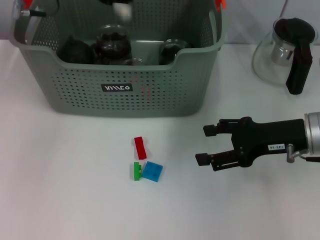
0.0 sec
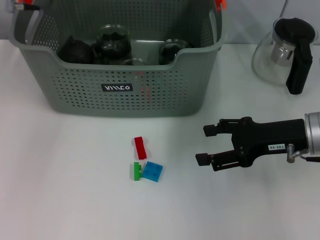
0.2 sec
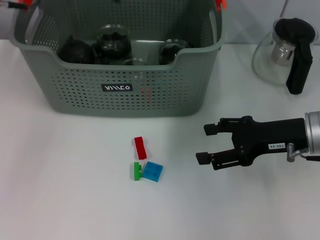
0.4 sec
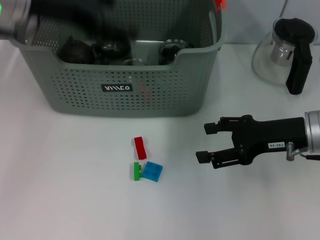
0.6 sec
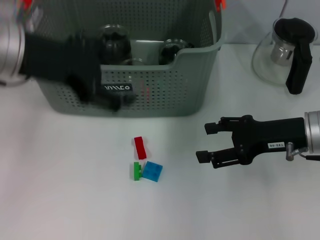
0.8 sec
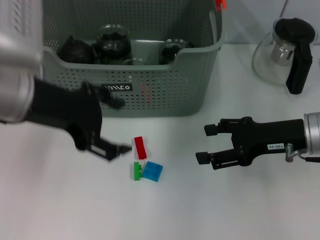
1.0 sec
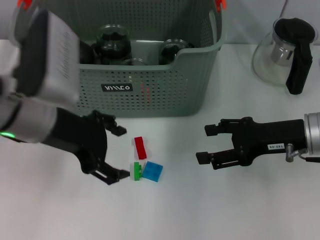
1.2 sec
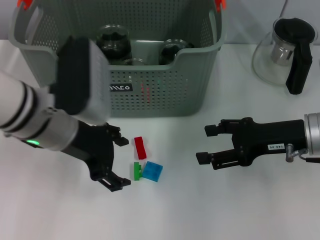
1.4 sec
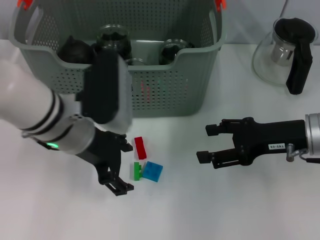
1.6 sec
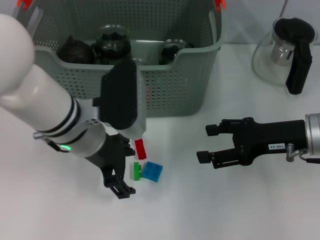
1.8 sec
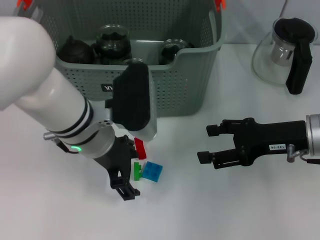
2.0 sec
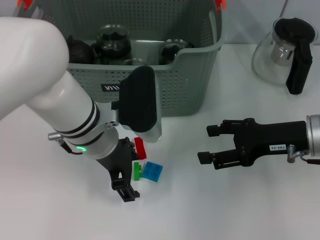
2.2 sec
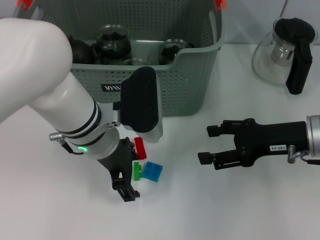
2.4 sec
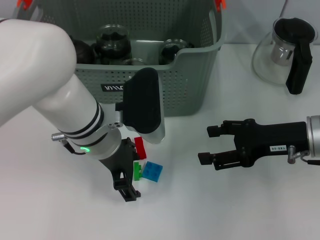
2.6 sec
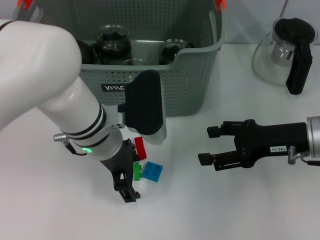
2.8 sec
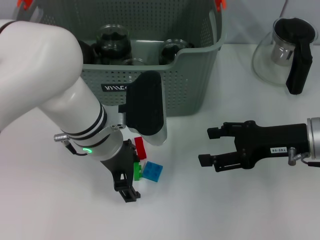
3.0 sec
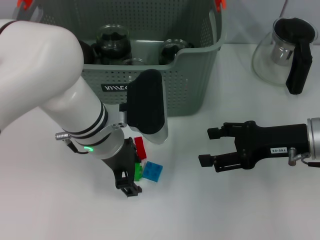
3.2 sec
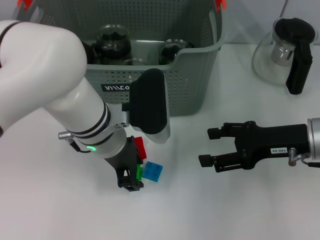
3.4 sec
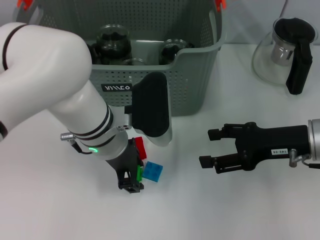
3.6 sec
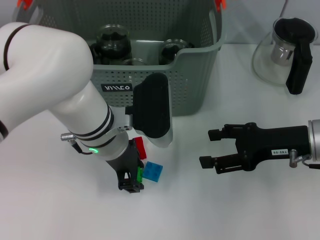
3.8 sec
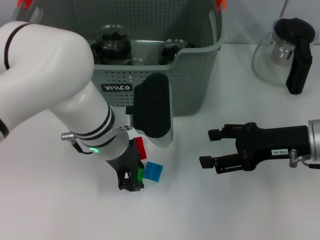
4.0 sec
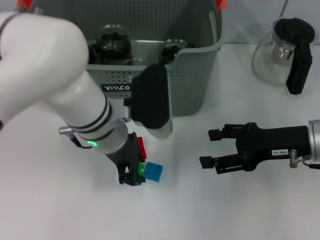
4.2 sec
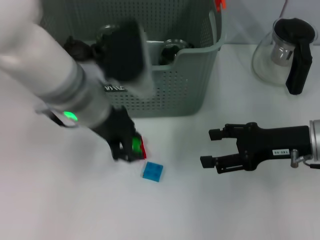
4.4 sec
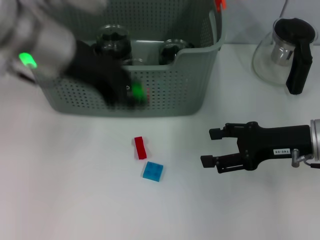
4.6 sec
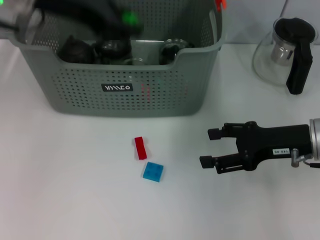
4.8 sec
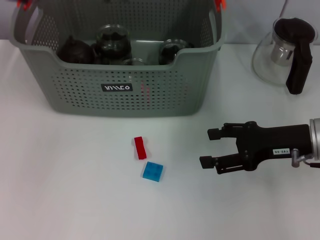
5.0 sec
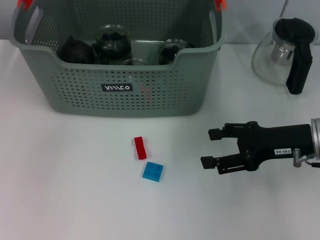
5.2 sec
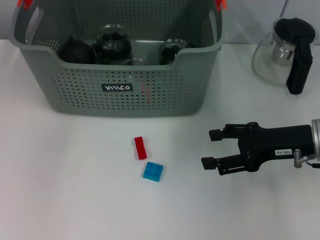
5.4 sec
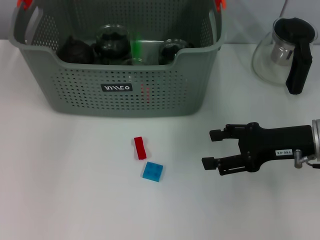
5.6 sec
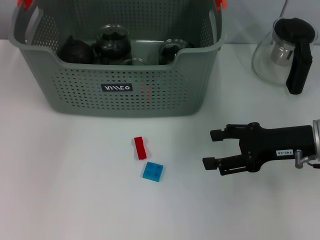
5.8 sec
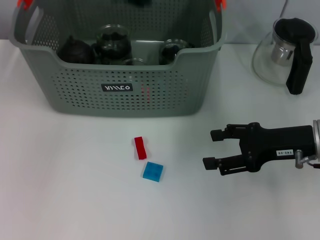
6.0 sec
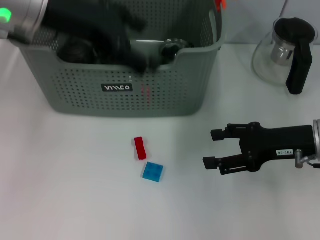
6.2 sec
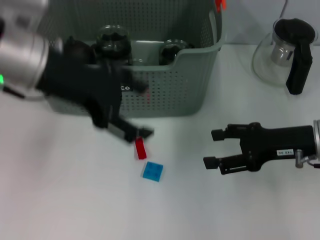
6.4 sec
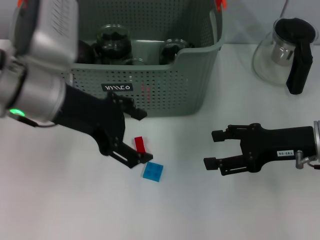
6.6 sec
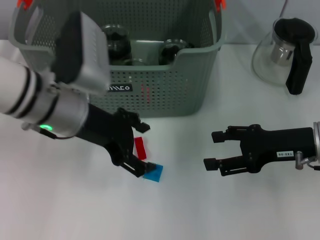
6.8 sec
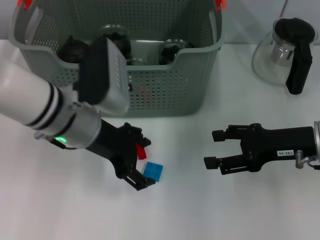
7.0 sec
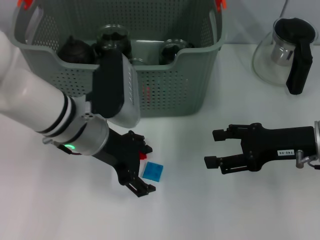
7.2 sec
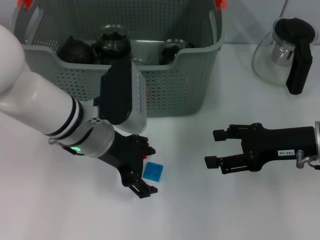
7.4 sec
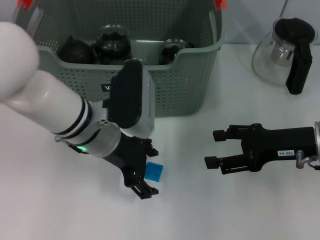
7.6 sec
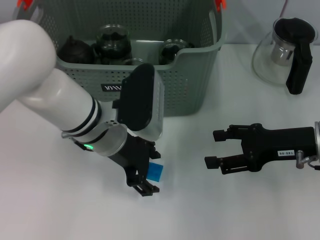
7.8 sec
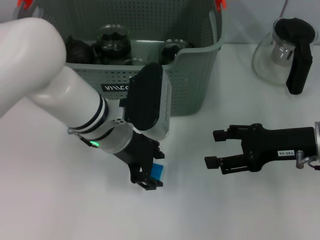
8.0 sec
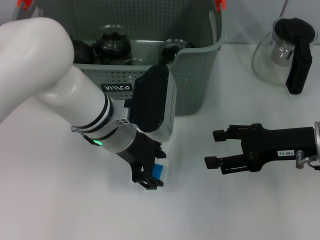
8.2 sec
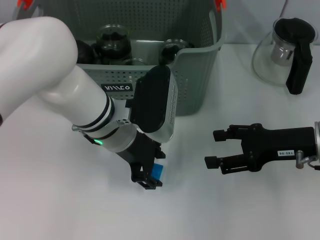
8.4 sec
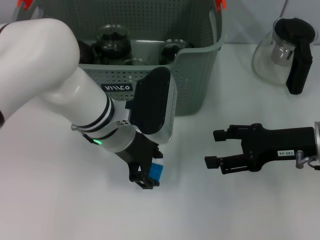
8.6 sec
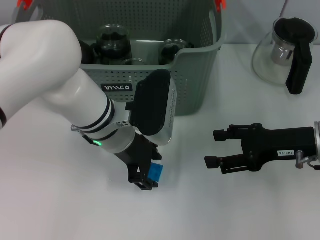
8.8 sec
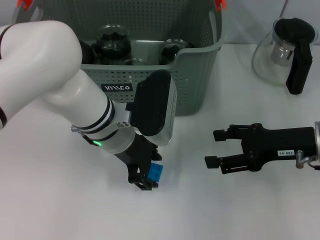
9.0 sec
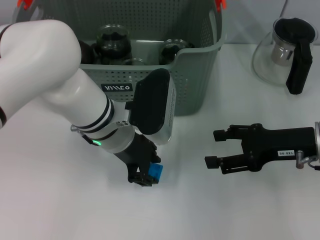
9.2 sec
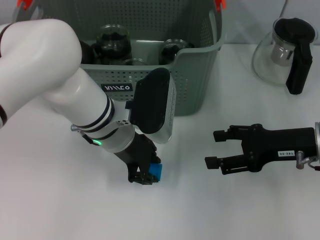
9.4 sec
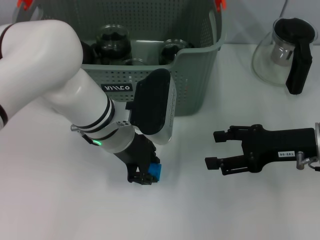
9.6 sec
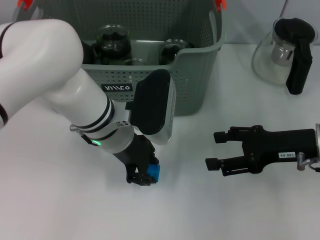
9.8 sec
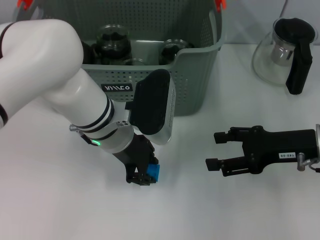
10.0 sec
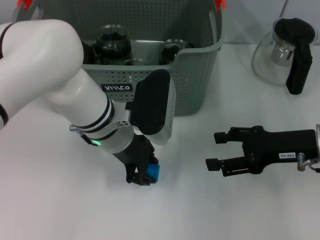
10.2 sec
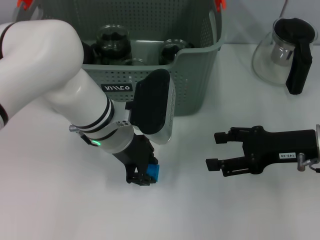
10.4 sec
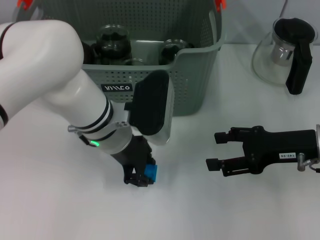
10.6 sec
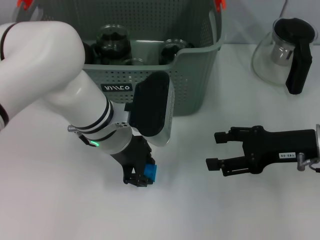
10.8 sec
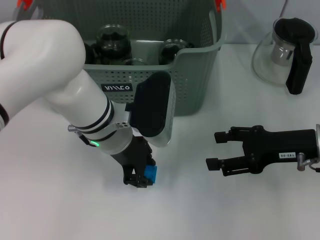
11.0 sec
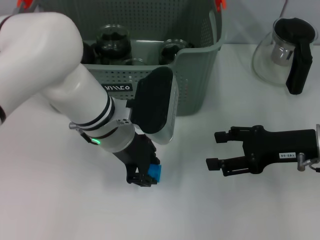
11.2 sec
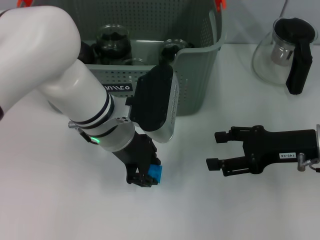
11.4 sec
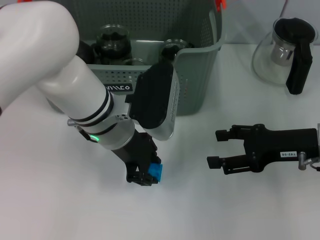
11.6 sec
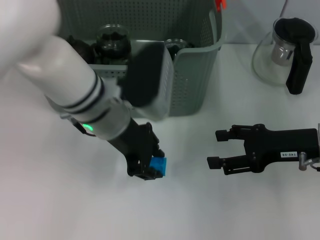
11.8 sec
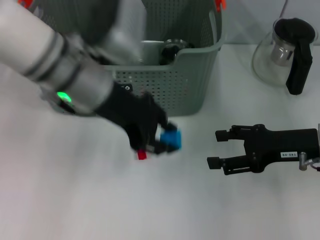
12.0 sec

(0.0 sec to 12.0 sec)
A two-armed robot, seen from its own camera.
Task of the whole recording: pick up the teacup on the table and place it into the storage bin, pick up the block on the table and place it into the storage bin.
Step, 0.4 sec - 4.0 sec: Grasp the green block with left gripper.
Step, 4.2 sec - 5.6 sec: Place the green block in the storage box with left gripper.
Step, 5.8 sec - 9.2 sec: Grasp the dark blue block with left gripper.
0.0 sec - 1.6 sec: The left gripper moves backward, downward and to the right, approximately 15 cm, and opens its fingers.
1.6 sec - 3.0 sec: The left gripper moves approximately 5 cm.
3.0 sec - 4.4 sec: The left gripper goes approximately 5 cm upward, and closes up.
4.4 sec - 6.0 sec: The left gripper heads upward, forward and to the left, covering about 15 cm, and opens its fingers.
6.0 sec - 7.6 sec: The left gripper goes about 20 cm downward and backward.
7.6 sec - 9.0 sec: The grippers move only a little.
9.0 sec - 10.4 sec: The two grippers keep their place.
10.4 sec - 12.0 sec: The left gripper is displaced upward by some 10 cm.

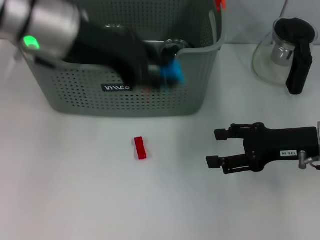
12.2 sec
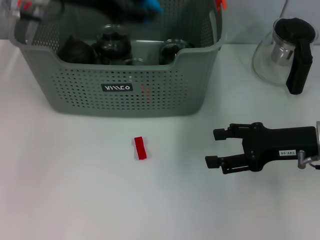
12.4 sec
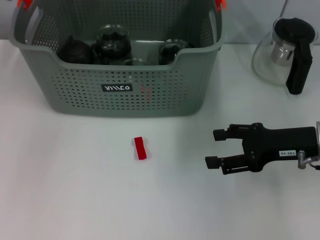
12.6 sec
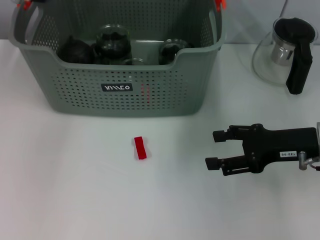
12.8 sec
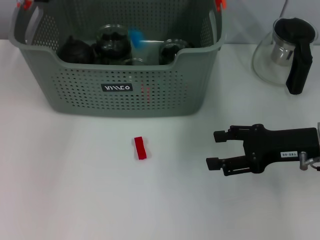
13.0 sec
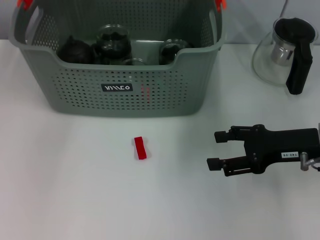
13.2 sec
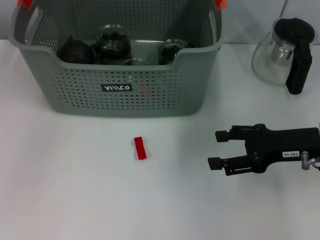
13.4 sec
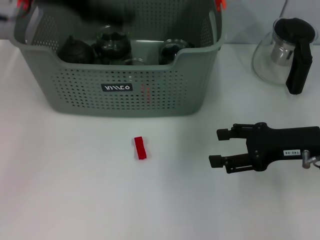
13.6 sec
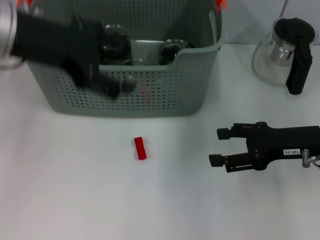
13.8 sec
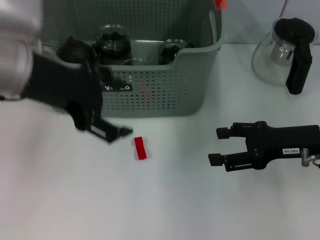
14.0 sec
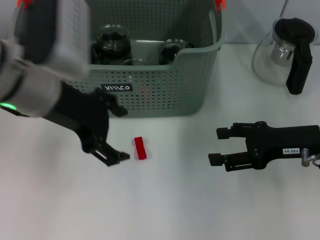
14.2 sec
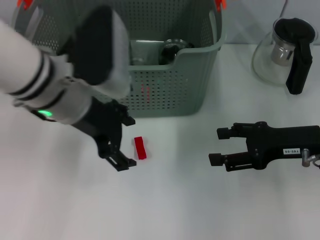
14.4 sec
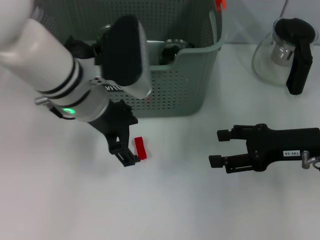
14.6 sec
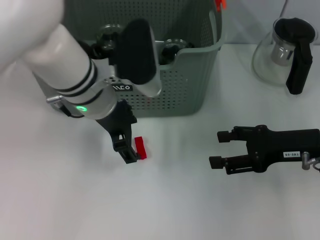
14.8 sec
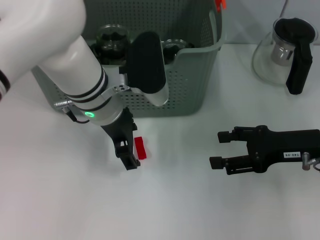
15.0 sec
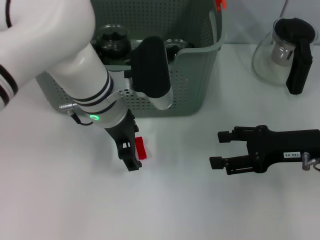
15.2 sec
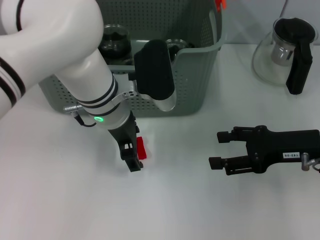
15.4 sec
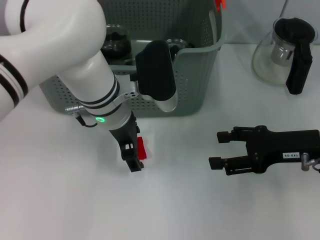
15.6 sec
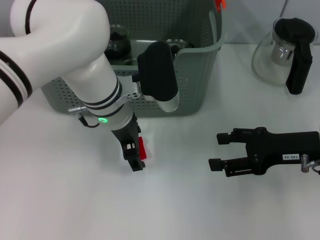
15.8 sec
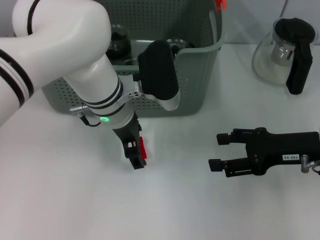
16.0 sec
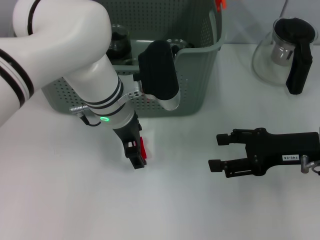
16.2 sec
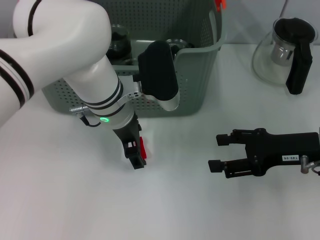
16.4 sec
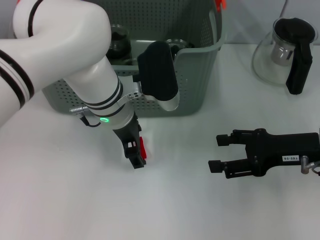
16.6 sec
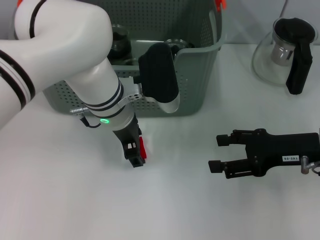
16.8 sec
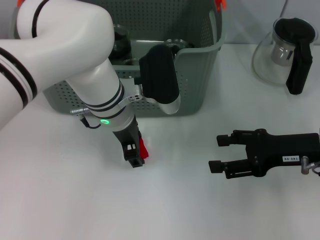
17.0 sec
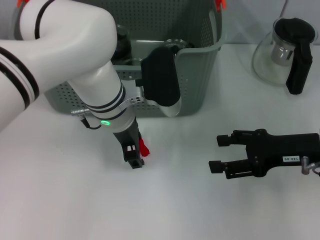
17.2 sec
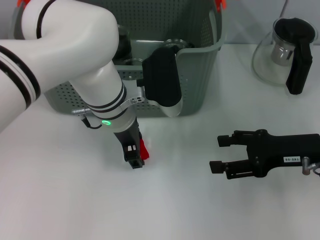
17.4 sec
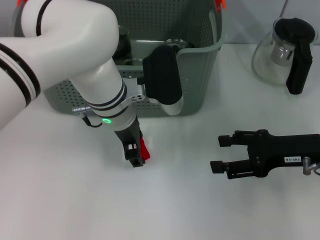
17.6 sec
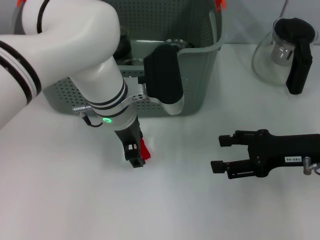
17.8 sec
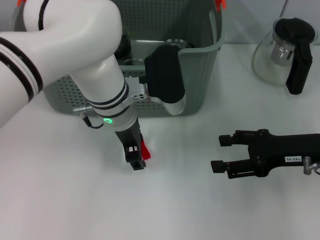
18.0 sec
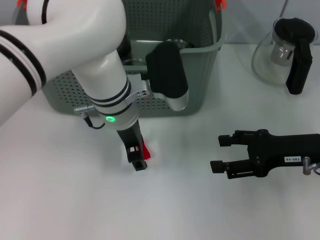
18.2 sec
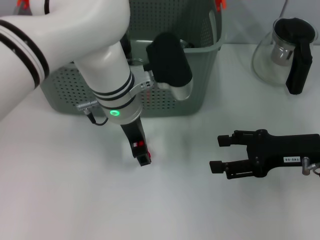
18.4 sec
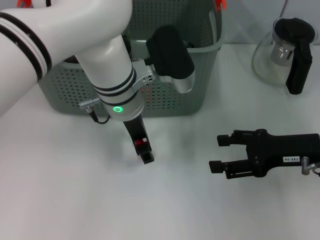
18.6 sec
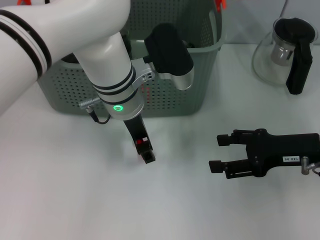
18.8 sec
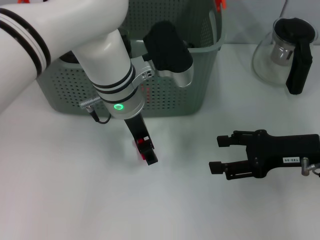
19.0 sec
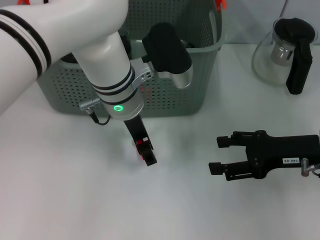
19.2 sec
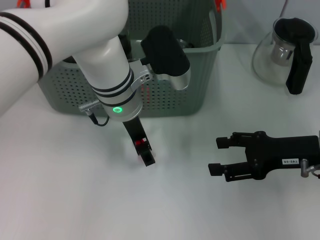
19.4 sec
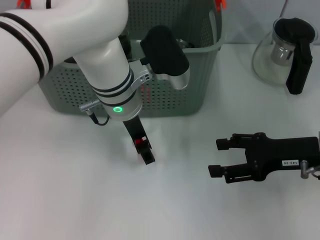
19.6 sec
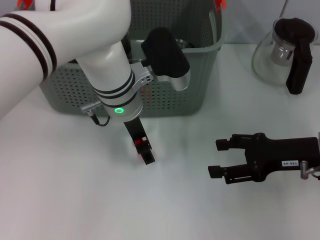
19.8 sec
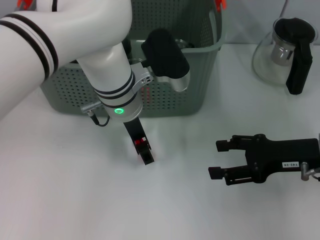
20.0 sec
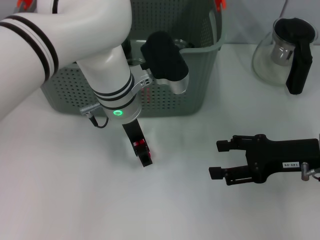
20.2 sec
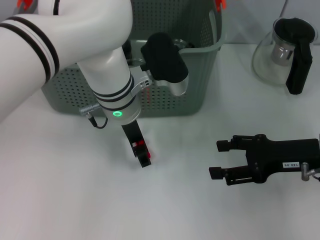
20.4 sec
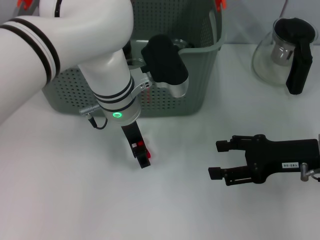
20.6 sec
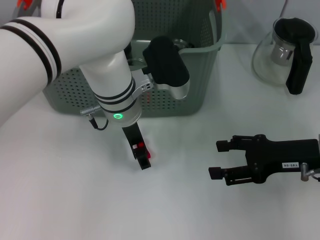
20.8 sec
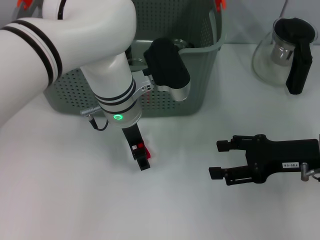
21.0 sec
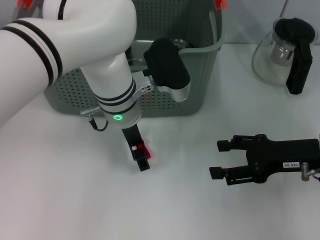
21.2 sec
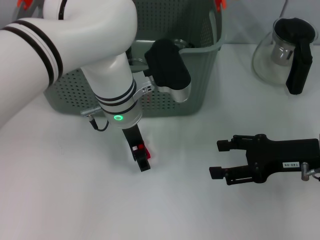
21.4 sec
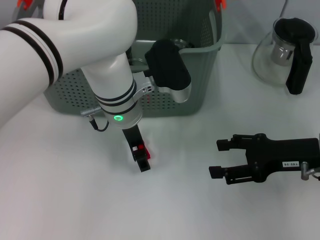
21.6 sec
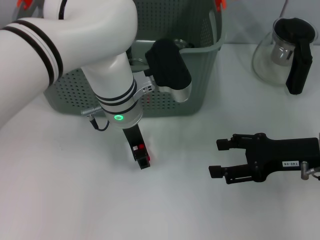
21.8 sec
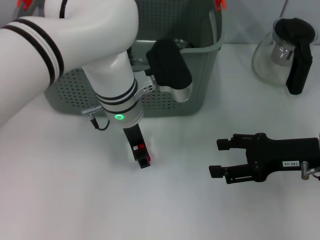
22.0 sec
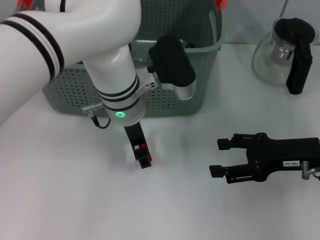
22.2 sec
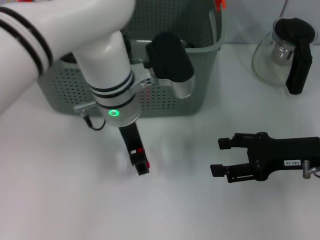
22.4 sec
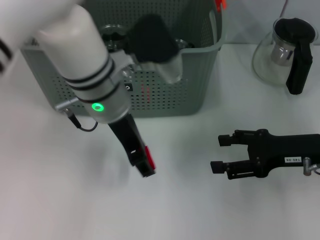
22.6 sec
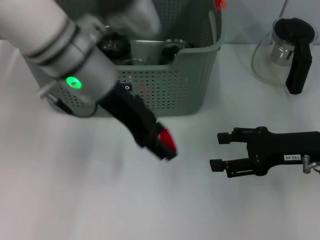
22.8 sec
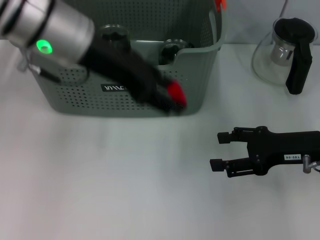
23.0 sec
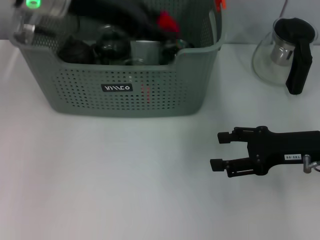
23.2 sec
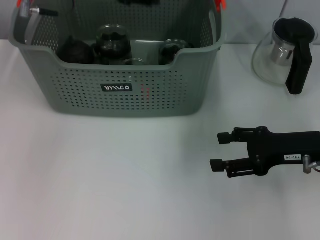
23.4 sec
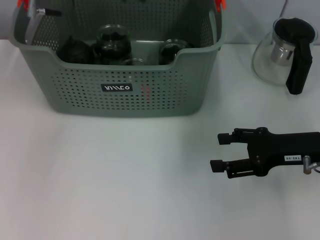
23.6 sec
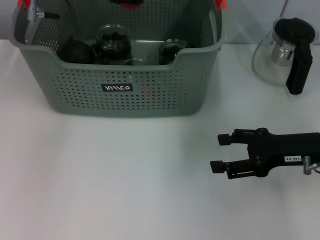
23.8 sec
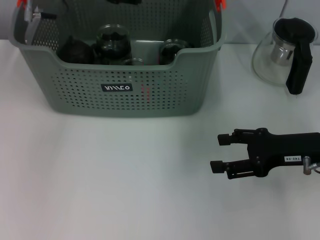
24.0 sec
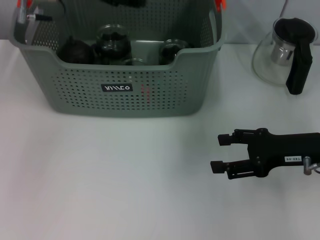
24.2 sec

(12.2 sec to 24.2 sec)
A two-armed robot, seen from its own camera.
Task of the whole recording: pick up the teacup on the table and place it into the storage bin, pick up the block on the table and place it into the storage bin.
Step, 13.2 sec - 21.8 sec: Grasp the red block with left gripper.
Step, 22.0 sec - 23.8 sec: Place the red block in the storage box with left gripper.
12.2 sec - 13.8 sec: The left gripper moves about 10 cm forward and comes back, and opens its fingers.
13.8 sec - 15.2 sec: The left gripper travels downward and to the right by some 20 cm.
15.2 sec - 19.8 sec: The grippers make only small movements.
19.8 sec - 21.2 sec: Both grippers stay put.
21.2 sec - 22.6 sec: The left gripper moves upward, approximately 5 cm.
22.6 sec - 24.2 sec: The left gripper shifts some 15 cm to the left, forward and upward.
